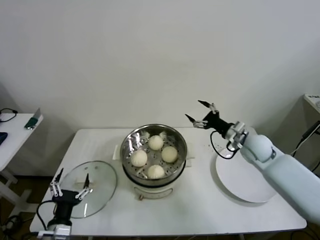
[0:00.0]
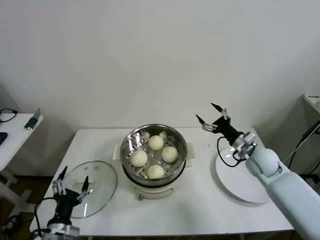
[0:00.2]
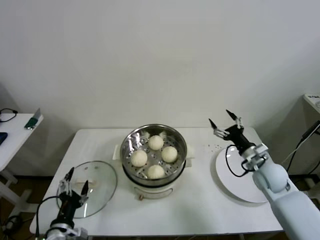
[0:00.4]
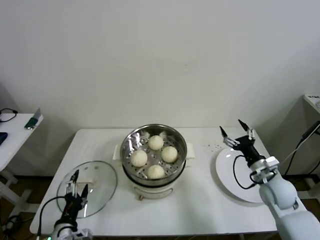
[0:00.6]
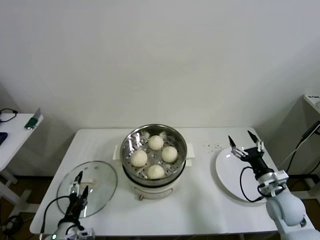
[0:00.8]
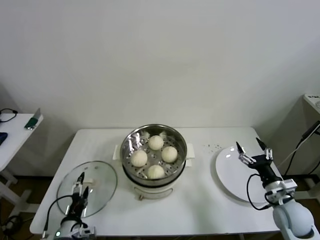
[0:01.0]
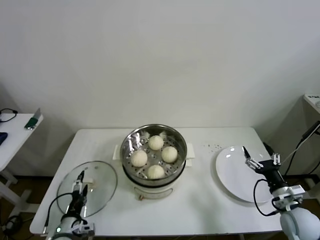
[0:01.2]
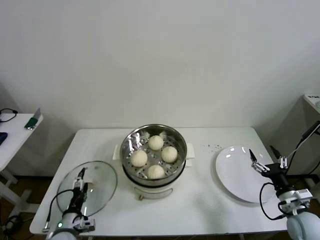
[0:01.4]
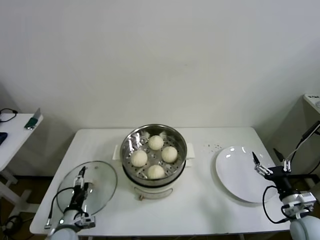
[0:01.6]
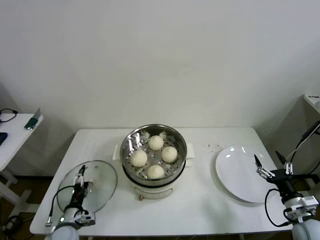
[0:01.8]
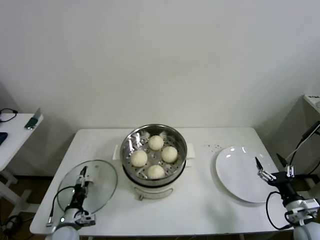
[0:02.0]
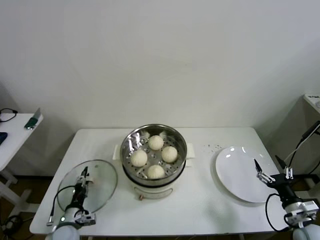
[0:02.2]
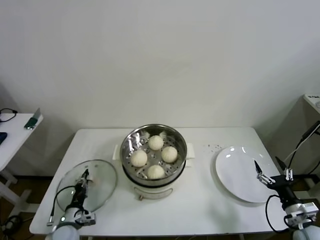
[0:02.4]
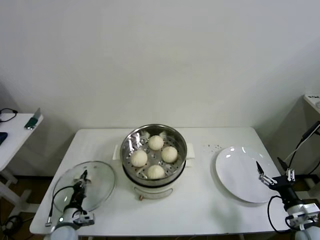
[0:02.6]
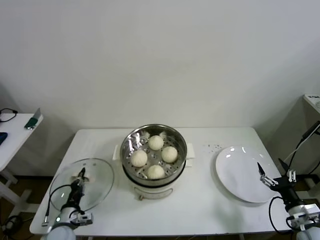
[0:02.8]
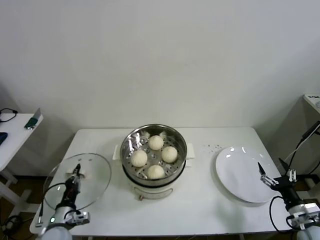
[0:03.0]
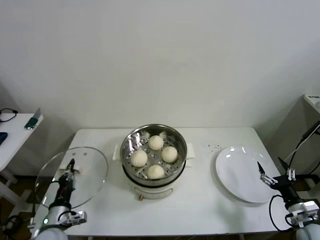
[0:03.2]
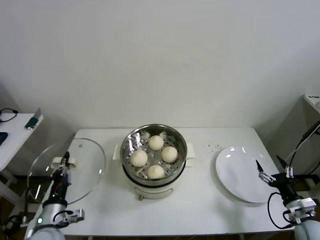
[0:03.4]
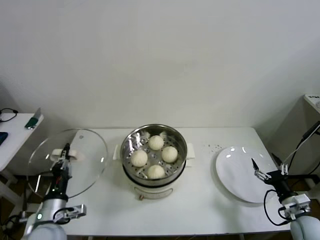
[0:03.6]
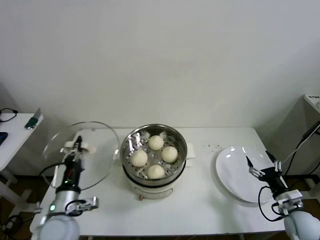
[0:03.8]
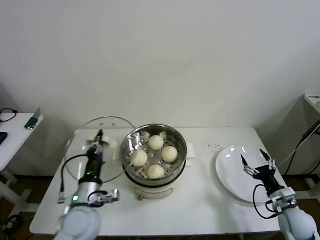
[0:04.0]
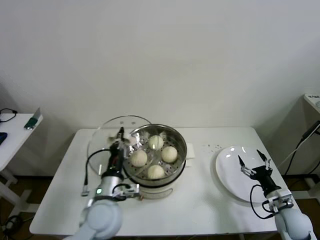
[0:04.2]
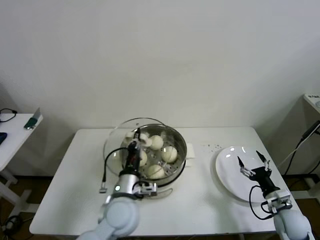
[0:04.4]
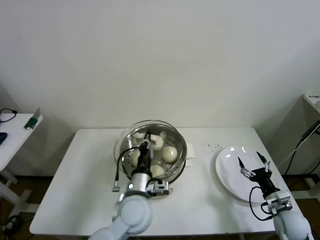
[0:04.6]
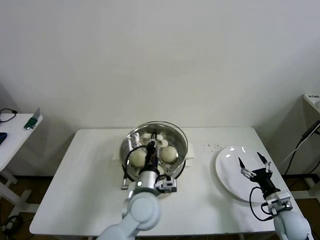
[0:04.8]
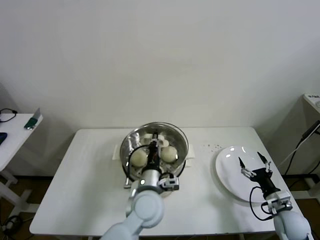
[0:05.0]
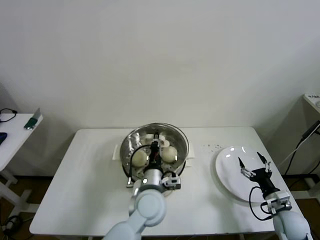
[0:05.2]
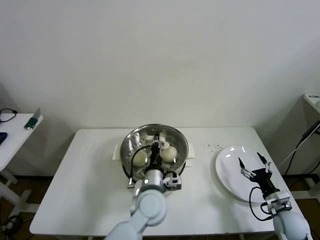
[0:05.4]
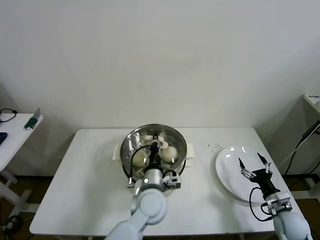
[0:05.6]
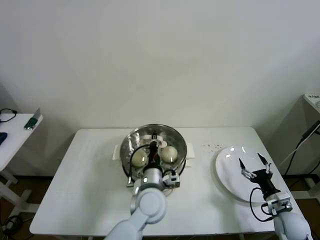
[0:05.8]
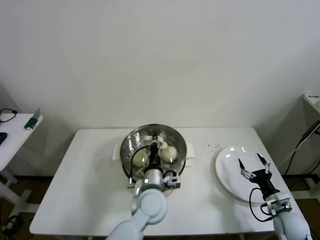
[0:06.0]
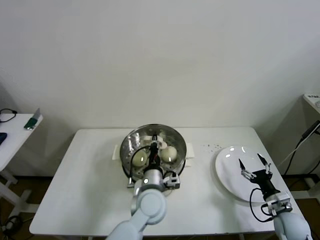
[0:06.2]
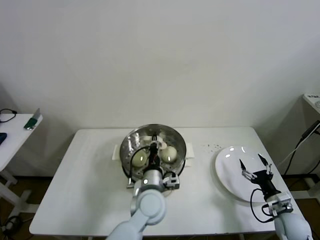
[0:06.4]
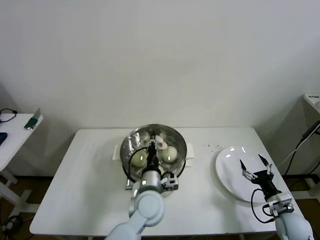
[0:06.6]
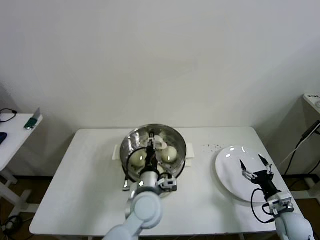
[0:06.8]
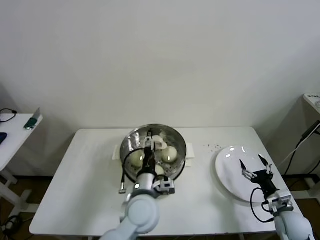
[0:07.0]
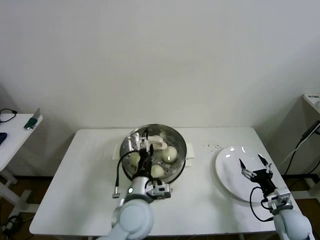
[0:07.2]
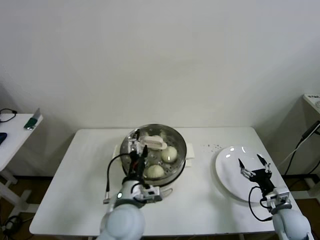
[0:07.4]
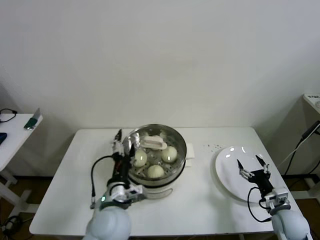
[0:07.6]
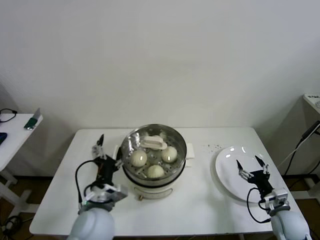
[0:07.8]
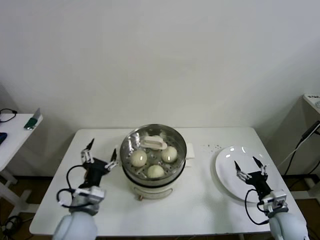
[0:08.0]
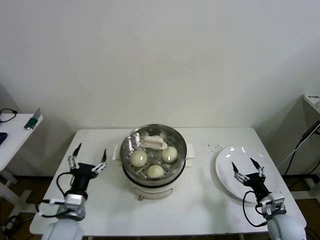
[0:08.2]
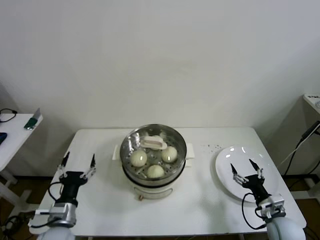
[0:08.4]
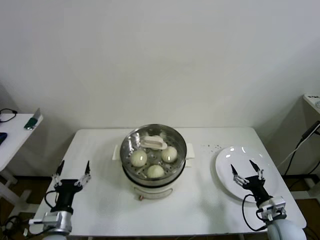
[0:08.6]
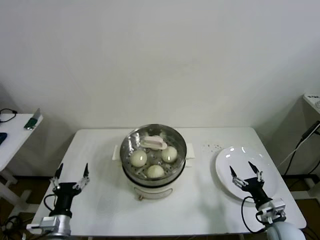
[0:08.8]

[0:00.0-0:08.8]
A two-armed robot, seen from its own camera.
Step, 0:00.0 to 0:02.4: Grasp the pot lid with left gripper.
Step, 0:02.8 to 0:07.2: Place the pot lid on the steamer with left gripper.
0:00.0 to 0:01.4: The right gripper moves backward, downward and to the right, approximately 25 cm. The left gripper is displaced downward and forward by approximately 10 cm.
0:01.4 to 0:03.0: The left gripper closes its fingers. Meanwhile the right gripper shifts by roughly 5 cm.
0:03.0 to 0:04.4: The left gripper heads to the right and upward, covering approximately 25 cm, while the right gripper shifts about 5 cm forward.
0:04.4 to 0:05.8: The left gripper shifts approximately 10 cm to the right.
0:05.8 to 0:07.4: The left gripper travels backward by approximately 5 cm, and opens its fingers.
0:07.4 to 0:08.8: The left gripper is displaced to the left and downward by about 25 cm.
